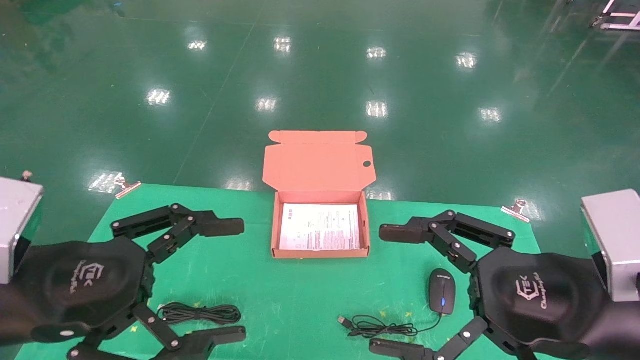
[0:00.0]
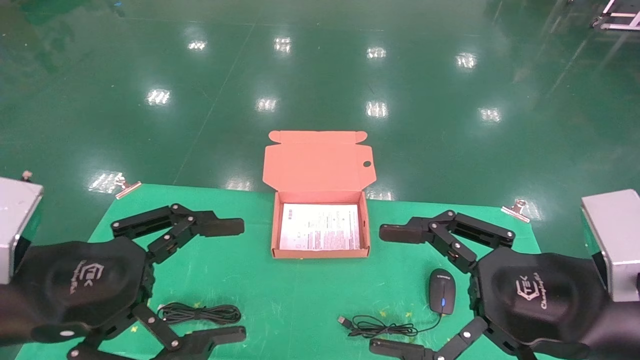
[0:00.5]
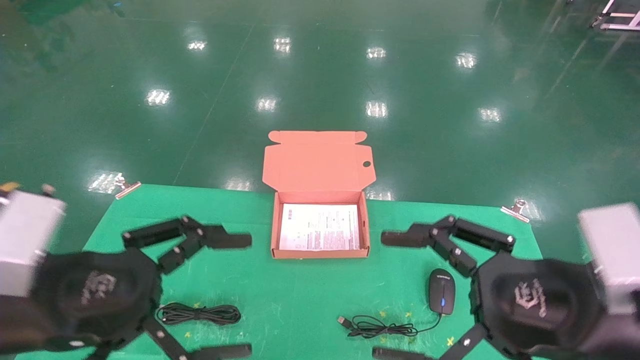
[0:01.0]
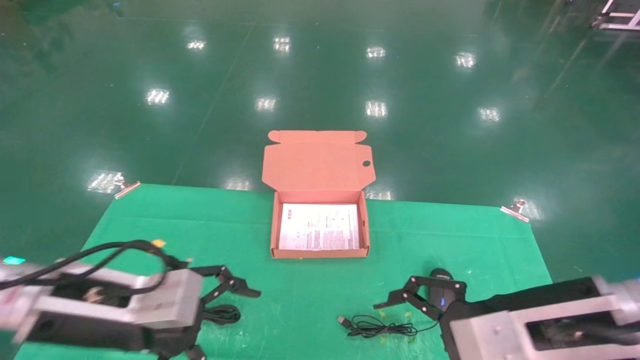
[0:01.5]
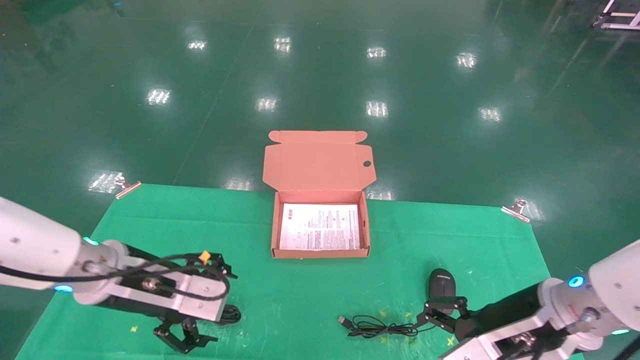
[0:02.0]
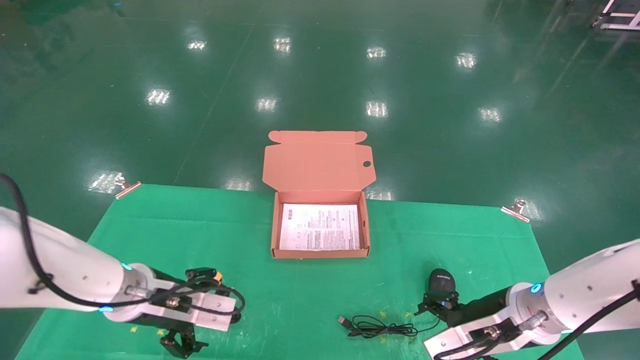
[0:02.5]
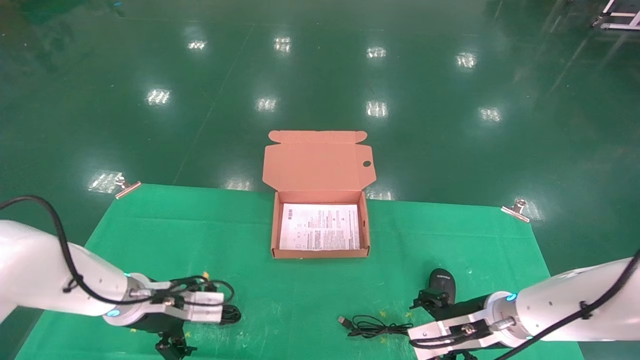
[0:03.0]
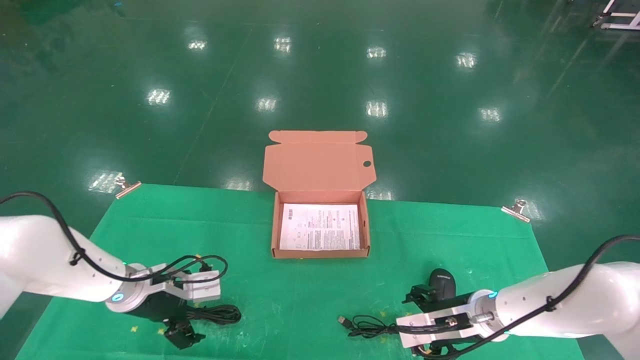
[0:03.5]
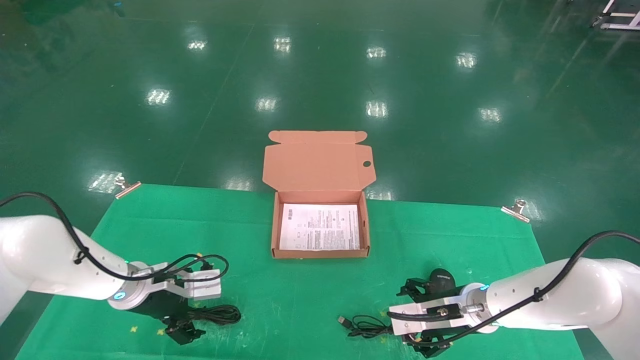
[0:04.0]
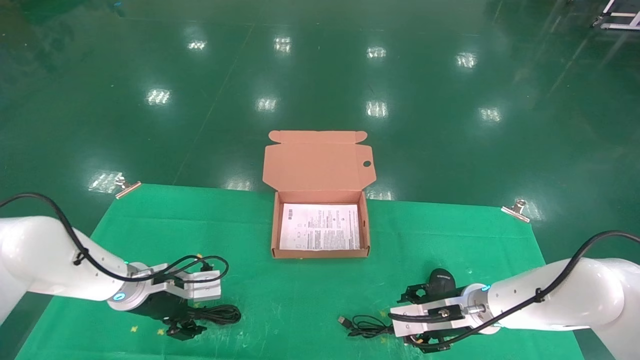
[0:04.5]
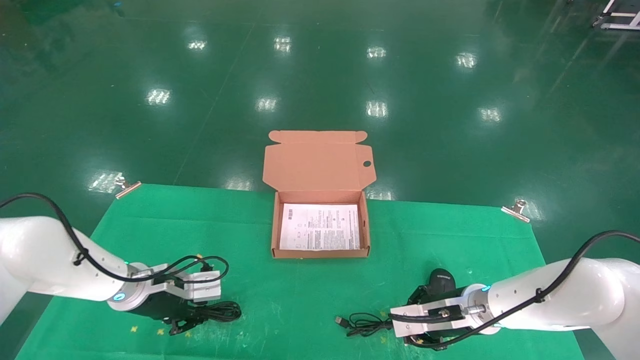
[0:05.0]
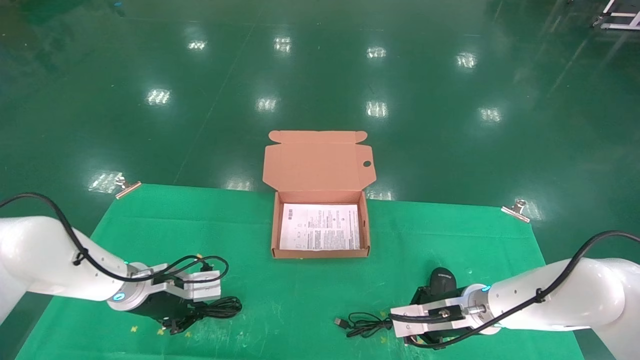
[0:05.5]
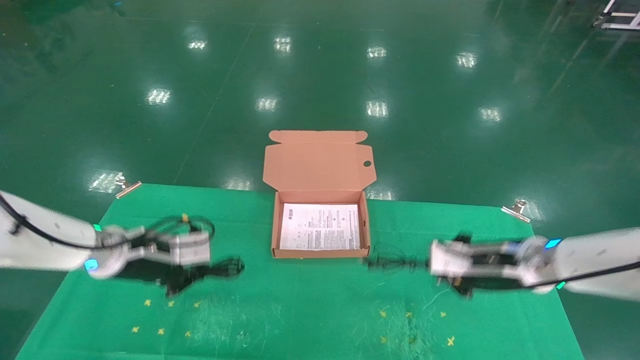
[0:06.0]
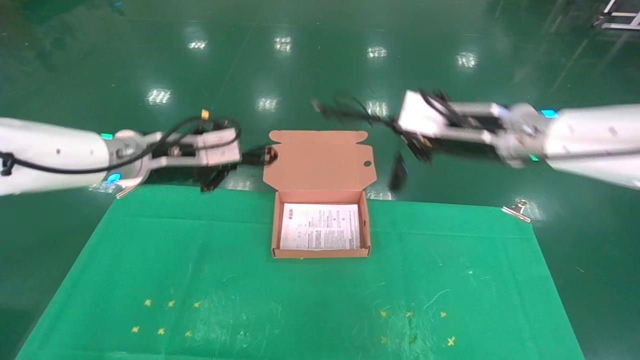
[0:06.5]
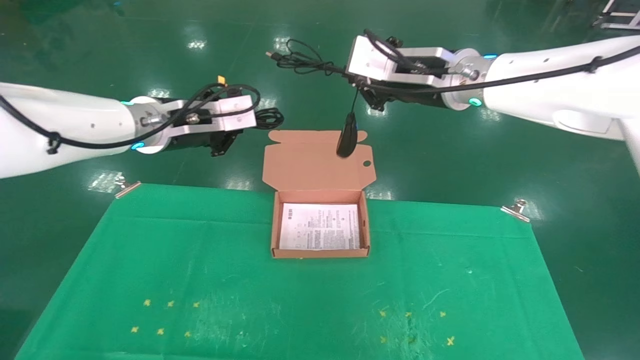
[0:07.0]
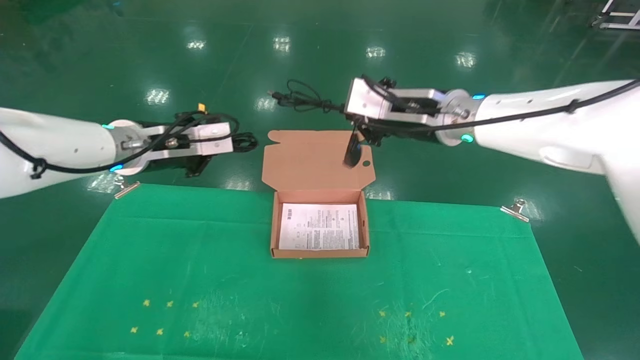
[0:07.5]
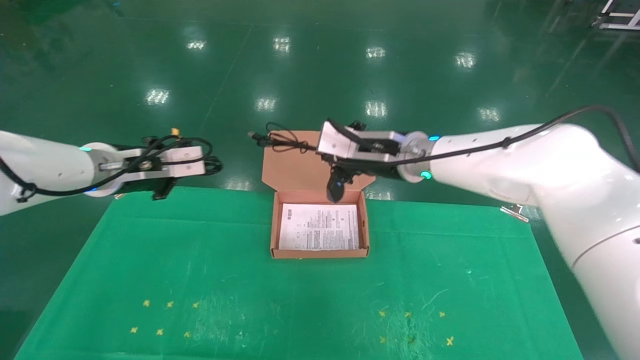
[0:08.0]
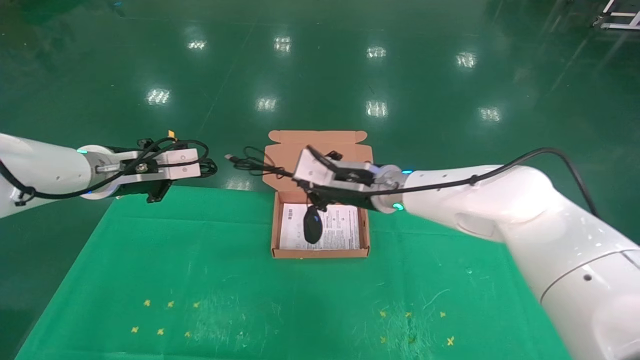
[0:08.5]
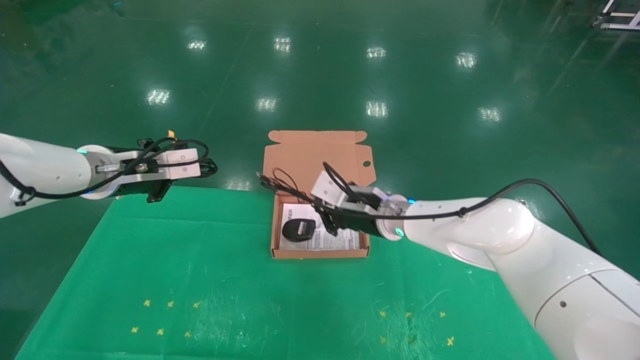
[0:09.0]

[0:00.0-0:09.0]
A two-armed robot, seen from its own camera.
Task of the whole recording: grasp data cable left put into box grasp mouse right put into box.
Step, 1.5 to 5.0 s: Grab and pick up both the mouse and power cord from the accessory packaging area at the same time.
0.0 to 2.0 s: The grippers both shift forward and downward by some 15 cm.
2.0 to 4.5 s: Both grippers travel together forward and downward, roughly 15 cm.
4.5 to 7.0 s: The two grippers go about 30 cm upward. The left gripper closes; the right gripper closes.
7.0 to 9.0 s: The left gripper moves to the left and downward, approximately 10 cm. Meanwhile the right gripper goes some 20 cm downward.

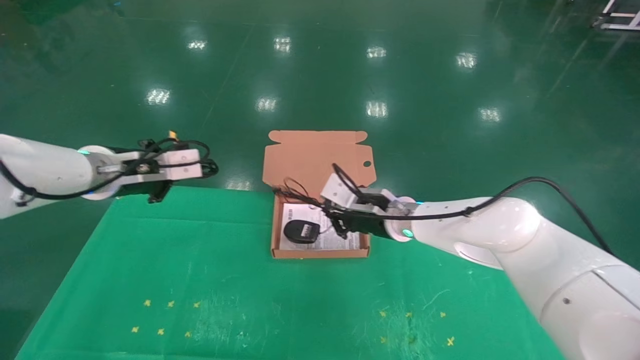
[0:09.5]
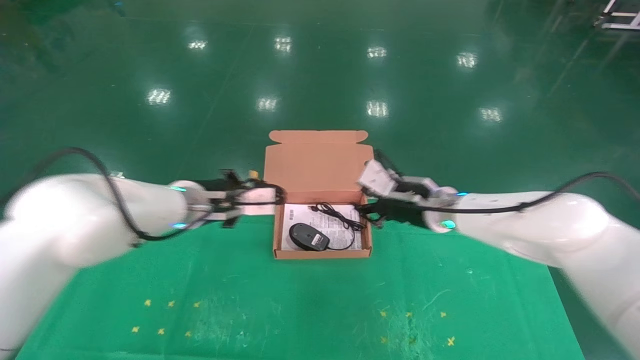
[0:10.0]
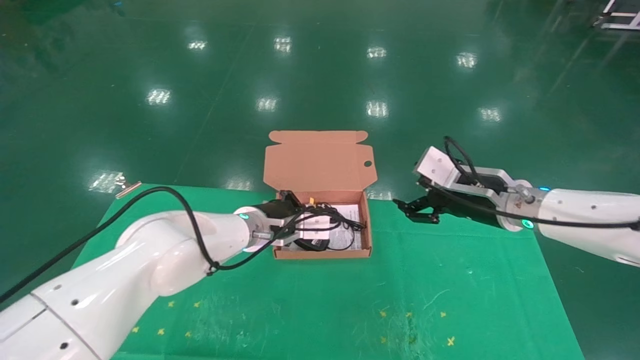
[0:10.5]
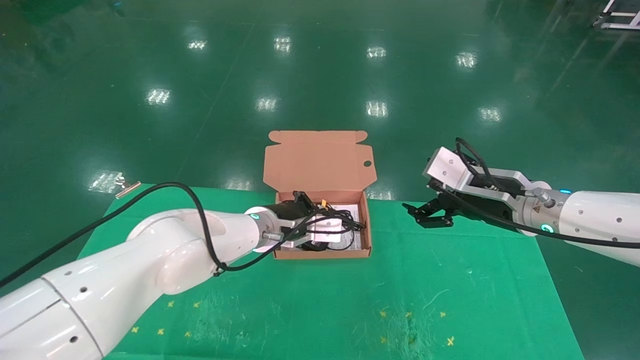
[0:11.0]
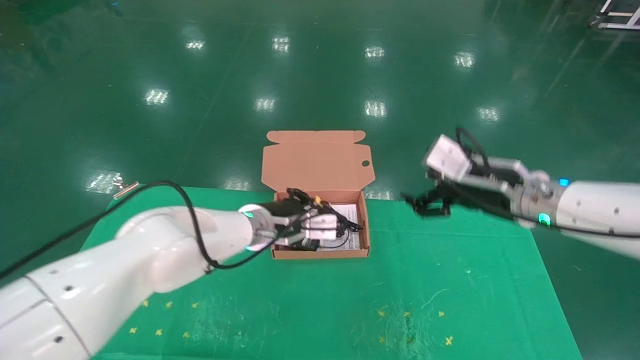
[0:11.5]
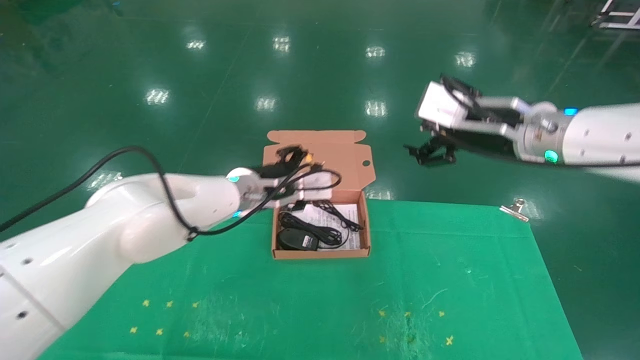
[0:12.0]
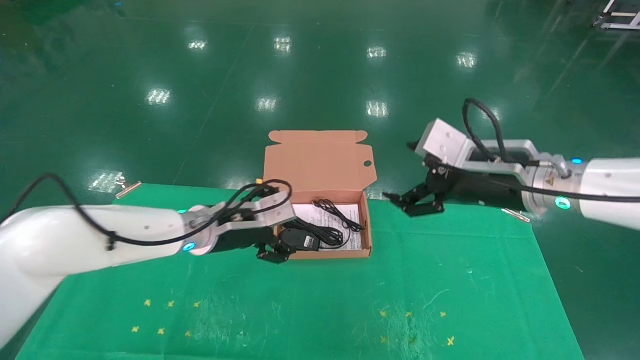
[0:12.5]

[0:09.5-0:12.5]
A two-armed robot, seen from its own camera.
Task of the whole recording: grasp data cable left put into box grasp mouse right put into box.
9.5 to 11.0 s: The left gripper goes approximately 20 cm to the right and downward, while the right gripper moves to the right, backward and upward, about 20 cm, and opens.
11.0 to 12.5 s: The left gripper heads to the left, covering approximately 10 cm, and opens up.

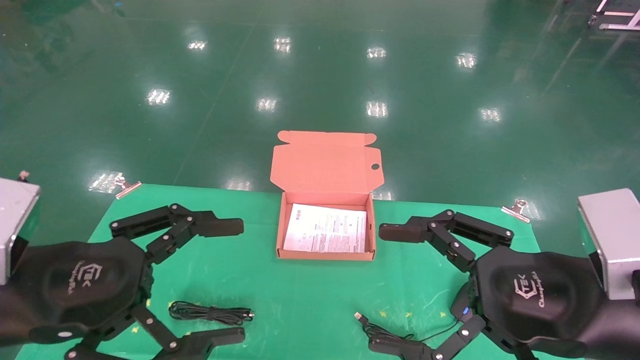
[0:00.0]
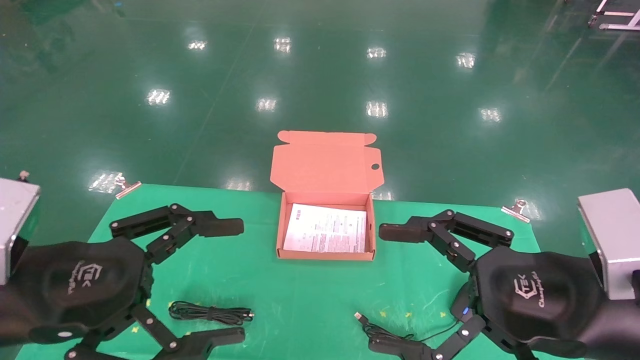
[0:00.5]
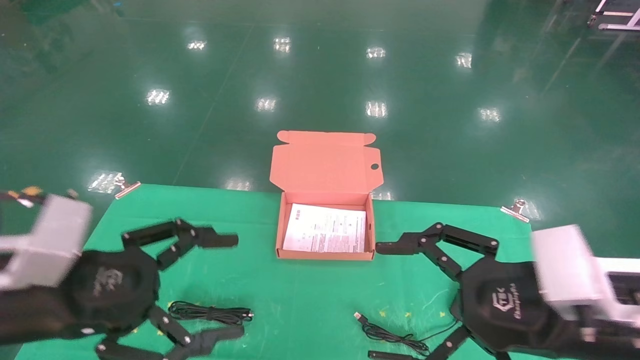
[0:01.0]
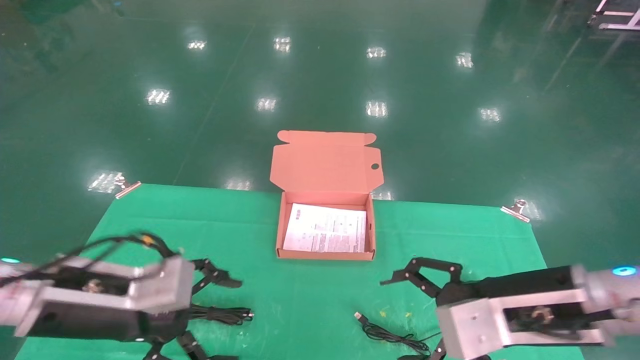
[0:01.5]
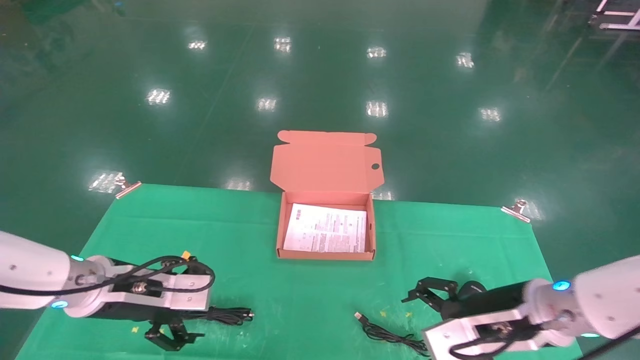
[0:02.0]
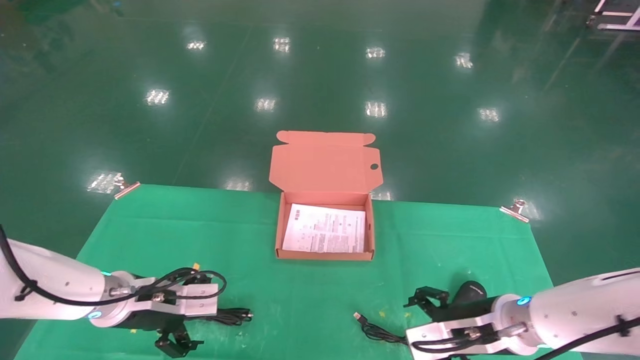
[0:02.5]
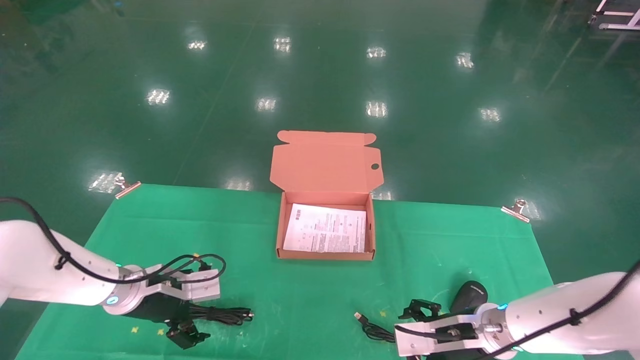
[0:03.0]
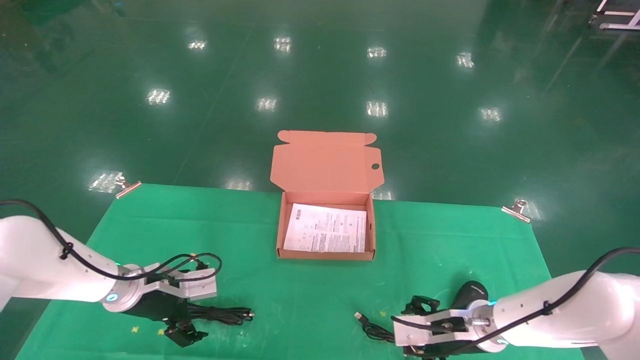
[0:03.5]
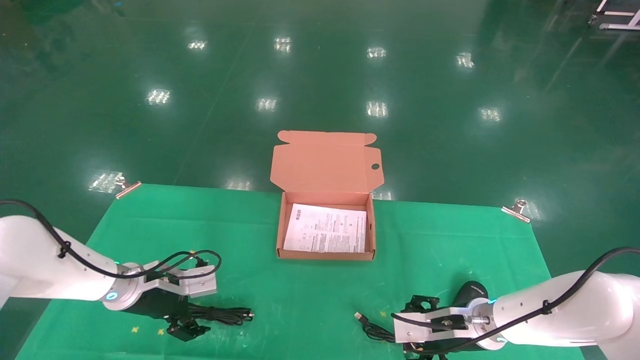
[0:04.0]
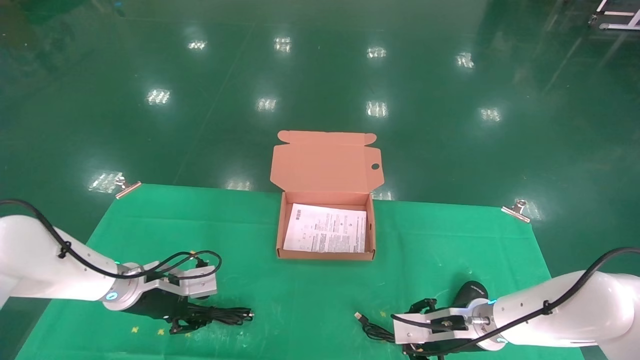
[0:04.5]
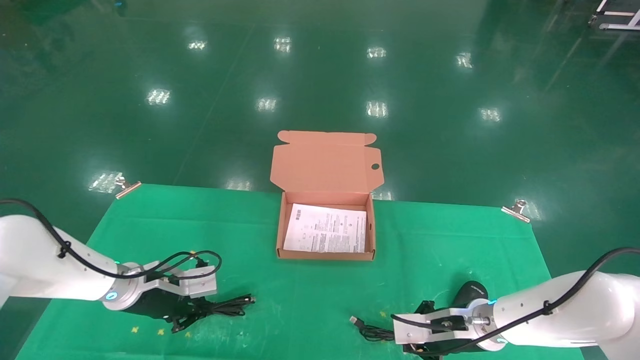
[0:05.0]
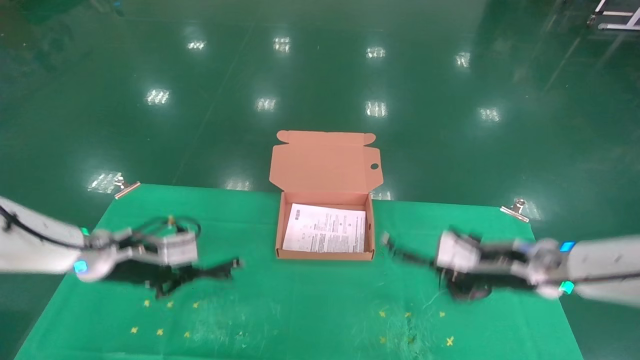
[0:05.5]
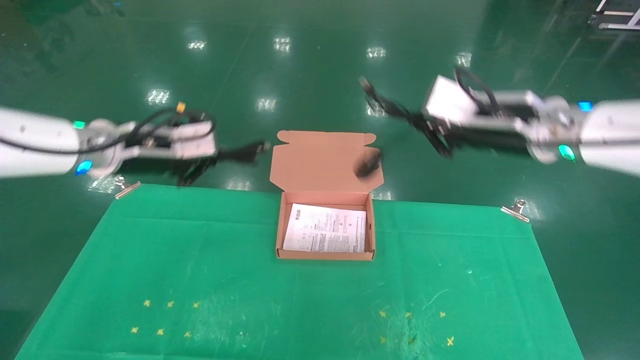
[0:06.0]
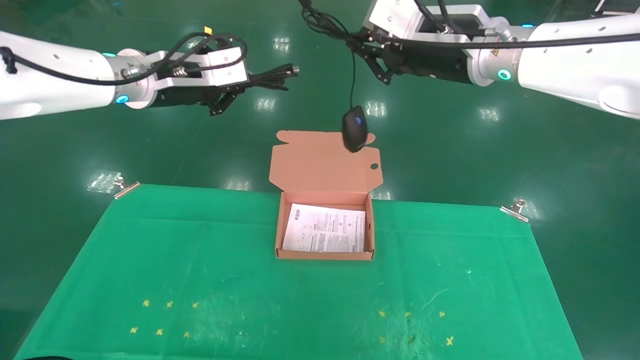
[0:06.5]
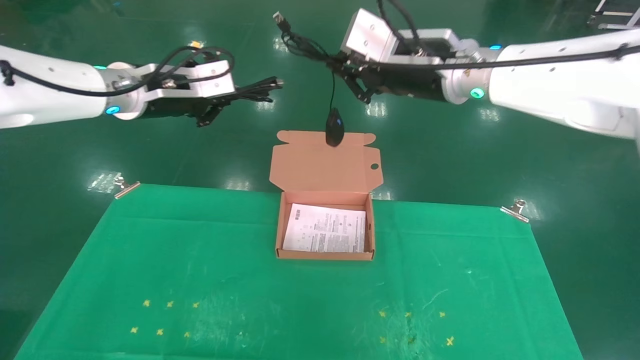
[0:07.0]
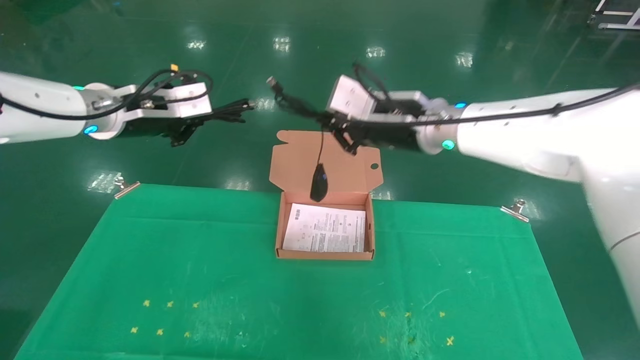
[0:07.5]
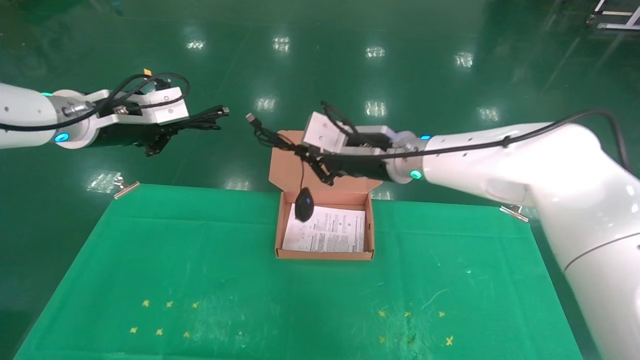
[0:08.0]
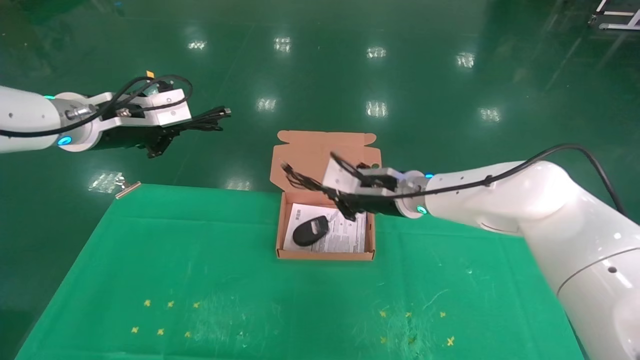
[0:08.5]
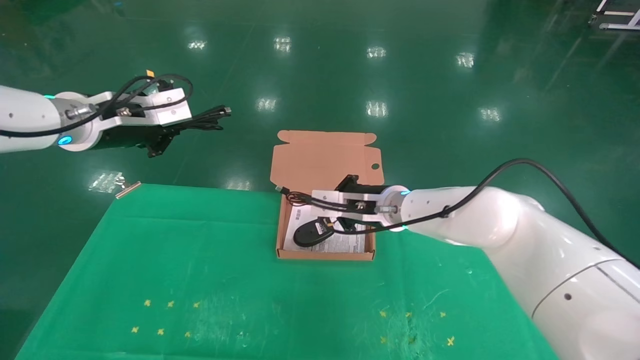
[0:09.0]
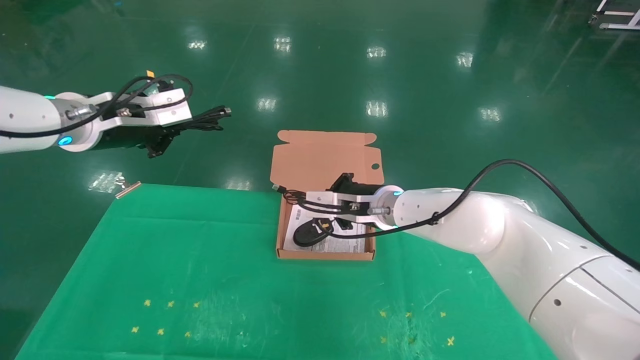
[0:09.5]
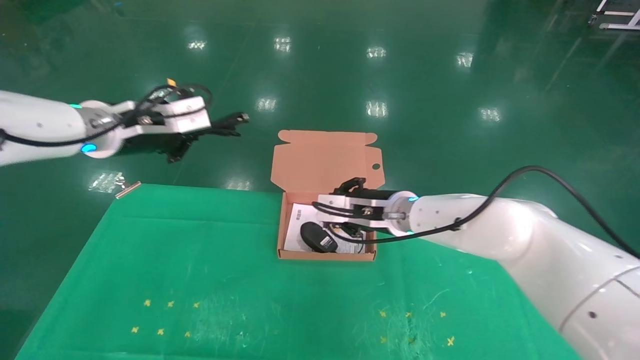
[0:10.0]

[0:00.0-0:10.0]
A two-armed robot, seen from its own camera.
Task of the whole recording: grasp data cable left put into box grasp mouse right put into box.
Step, 1.0 to 6.5 s: Grab and pick up both the mouse and power cord from the accessory packaging area at the same time.
0.0 to 2.0 s: The two grippers go some 15 cm forward and downward.
2.0 to 4.0 s: The right gripper travels downward and forward by approximately 15 cm; the left gripper travels forward and downward by about 10 cm.
4.0 to 6.0 s: Both grippers move upward, some 30 cm. The right gripper closes its fingers, while the left gripper closes up.
6.0 to 8.0 s: The right gripper shifts roughly 15 cm to the left, downward and forward. The left gripper ends up some 5 cm from where it was.
8.0 to 10.0 s: The right gripper heads downward, covering about 10 cm.
